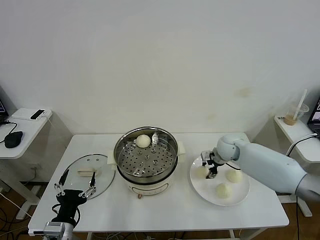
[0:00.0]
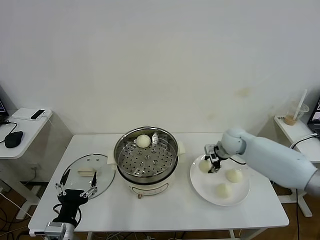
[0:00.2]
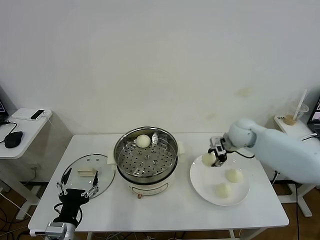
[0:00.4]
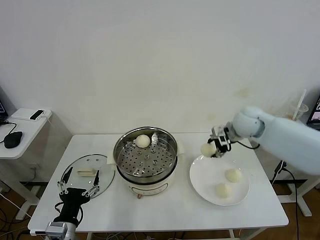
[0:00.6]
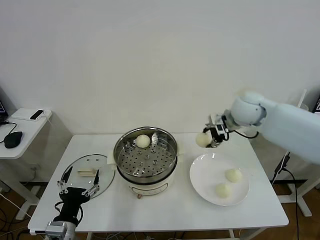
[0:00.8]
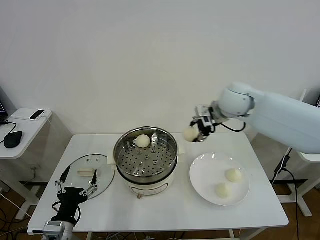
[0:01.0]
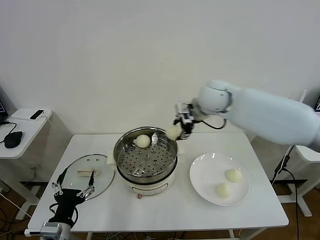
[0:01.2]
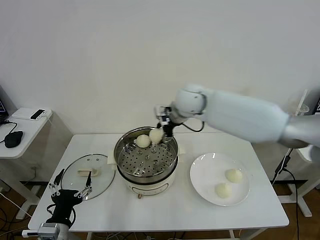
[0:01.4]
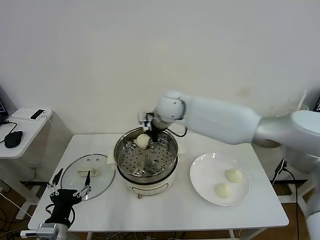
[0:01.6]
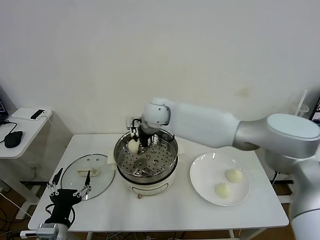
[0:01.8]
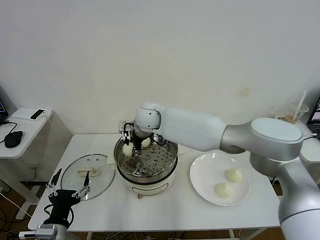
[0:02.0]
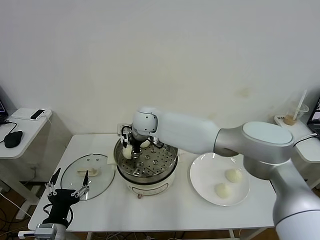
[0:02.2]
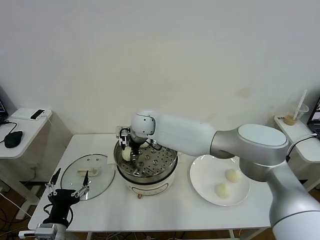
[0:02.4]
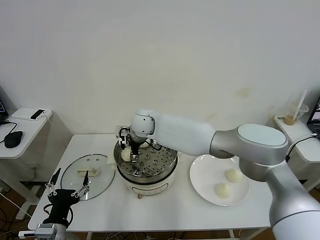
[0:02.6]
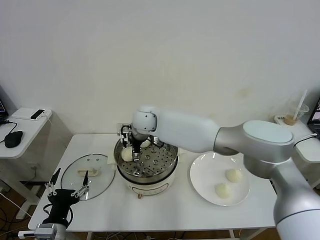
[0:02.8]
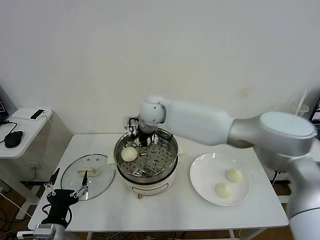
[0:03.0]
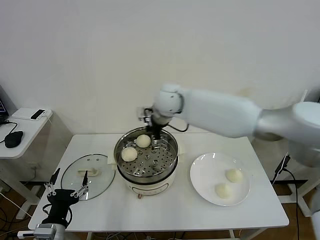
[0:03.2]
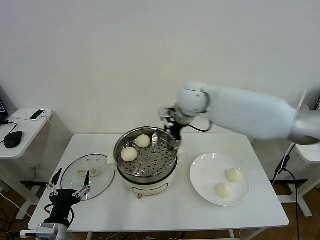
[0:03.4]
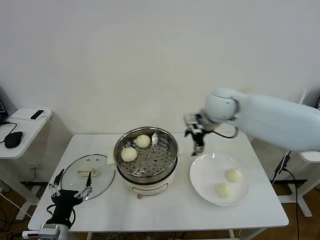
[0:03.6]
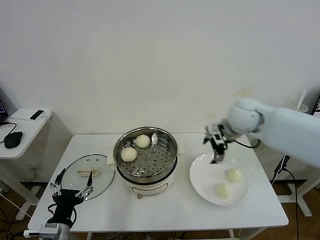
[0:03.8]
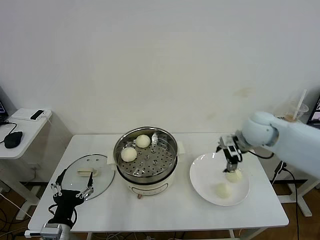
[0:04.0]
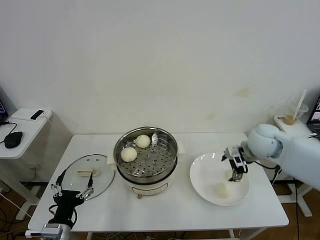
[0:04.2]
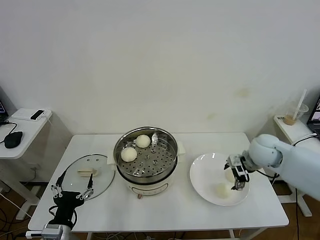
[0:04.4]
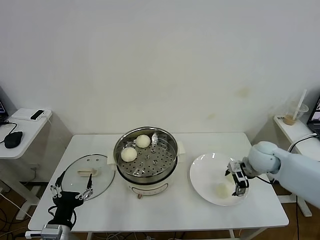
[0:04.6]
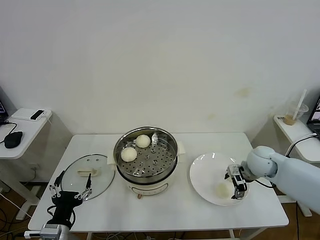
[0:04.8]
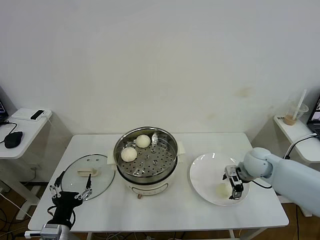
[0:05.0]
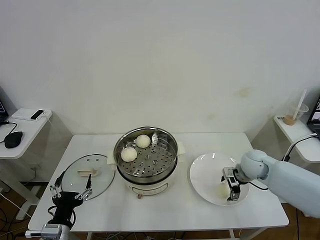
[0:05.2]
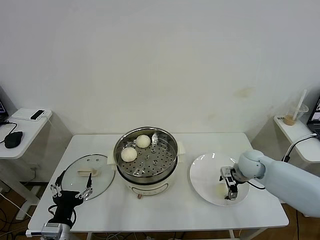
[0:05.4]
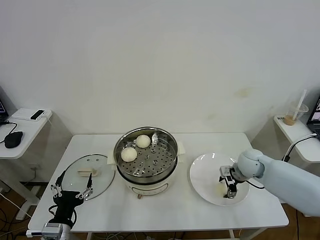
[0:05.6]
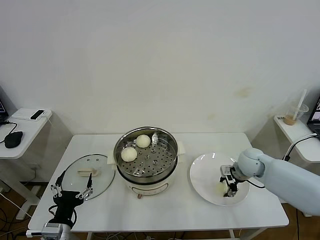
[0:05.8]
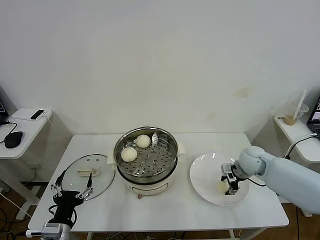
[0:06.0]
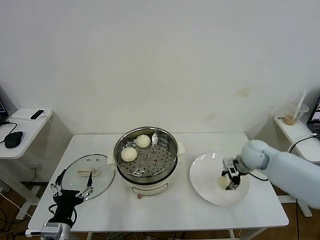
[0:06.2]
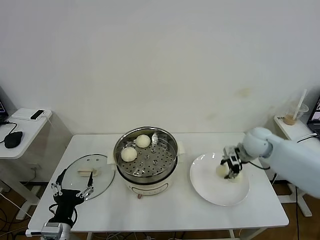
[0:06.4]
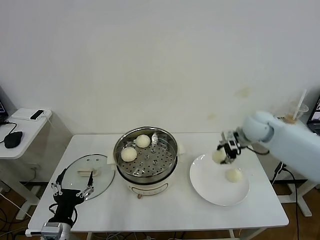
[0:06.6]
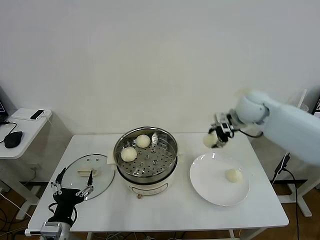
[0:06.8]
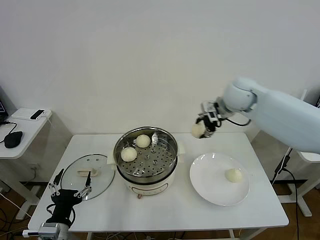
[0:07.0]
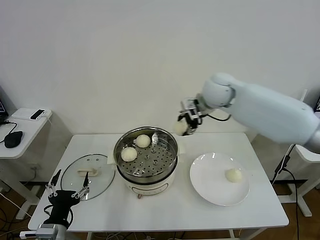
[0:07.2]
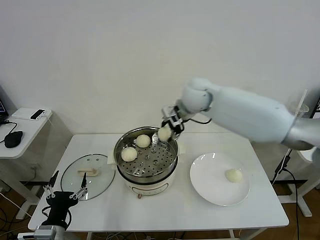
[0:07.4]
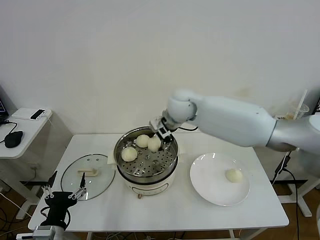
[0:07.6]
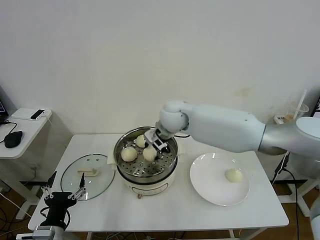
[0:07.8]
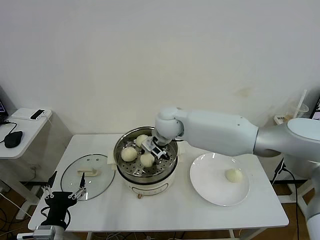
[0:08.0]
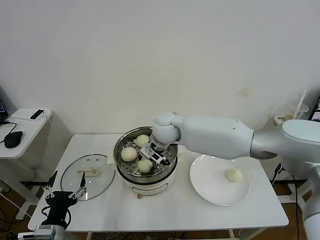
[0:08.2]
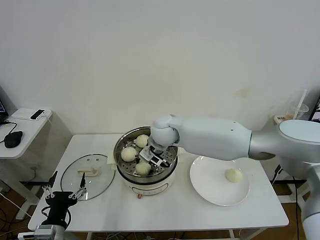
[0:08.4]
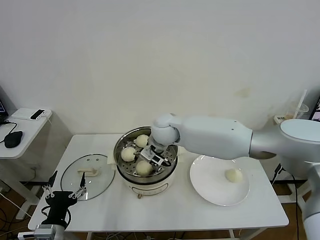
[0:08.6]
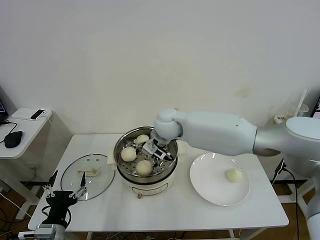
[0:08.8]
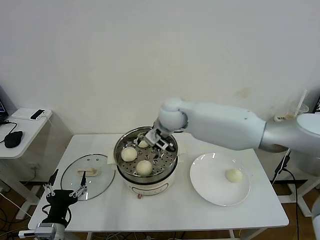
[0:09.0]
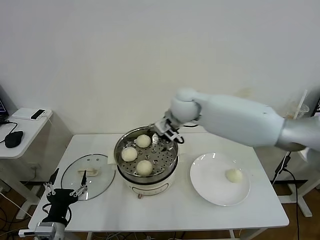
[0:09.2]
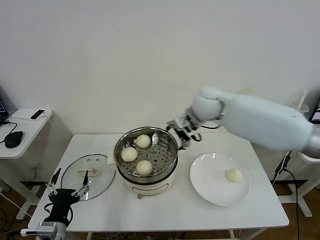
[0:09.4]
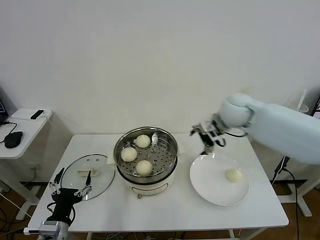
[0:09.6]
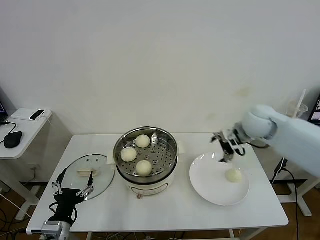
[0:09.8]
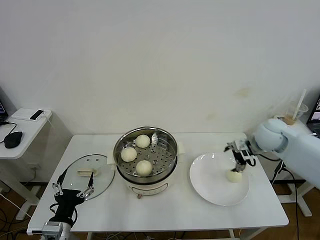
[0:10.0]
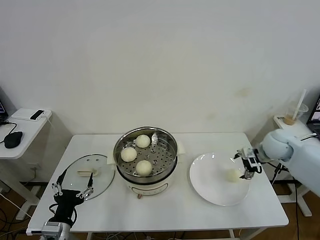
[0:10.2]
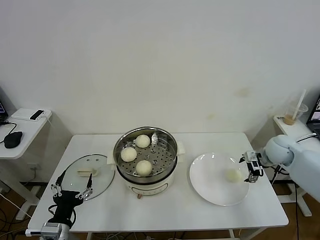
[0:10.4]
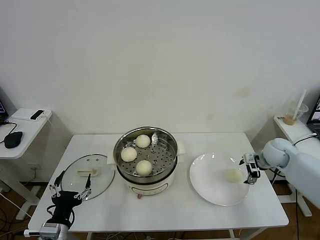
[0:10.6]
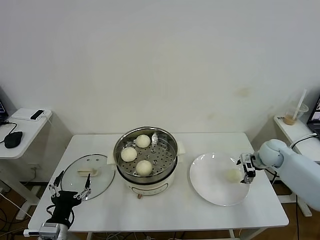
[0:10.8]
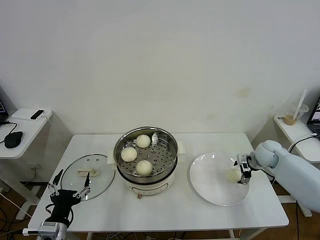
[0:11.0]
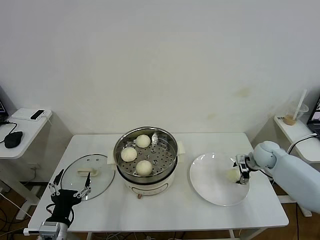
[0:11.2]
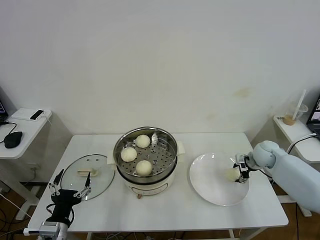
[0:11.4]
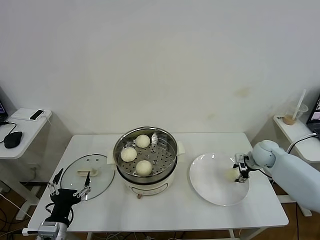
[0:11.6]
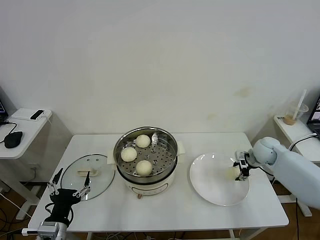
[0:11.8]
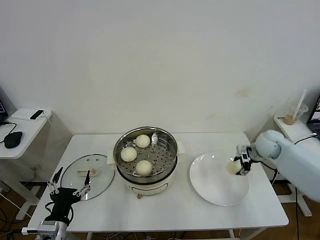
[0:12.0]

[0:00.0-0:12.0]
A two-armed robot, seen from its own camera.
Task of the whole recording: take steamed baozi put them in steamer then cover it.
Step, 0:00.0 to 0:02.8: Place the baozi on the steamer with right gripper.
Step, 0:03.0 to 0:05.8: Grasp the baozi in the plate with right gripper.
Step, 0:06.0 to 0:08.8: Place the baozi on the steamer with right gripper.
Step, 0:09.0 to 0:11.4: Grasp the baozi in the plate with right gripper.
0:00.0 to 0:01.6: The right gripper heads to the left and upward, covering roughly 30 cm.
0:01.6 to 0:03.0: The right gripper opens its fingers.
0:03.0 to 0:04.4: The right gripper shifts about 35 cm to the right.
0:04.4 to 0:06.0: The right gripper heads downward, covering approximately 5 cm, and closes.
0:06.0 to 0:07.6: The right gripper moves to the left and upward, approximately 35 cm.
0:07.6 to 0:09.0: The right gripper opens.
0:09.0 to 0:10.4: The right gripper heads to the right, covering roughly 35 cm.
0:10.4 to 0:12.0: The right gripper closes.

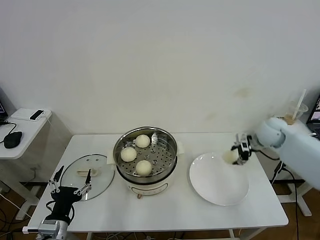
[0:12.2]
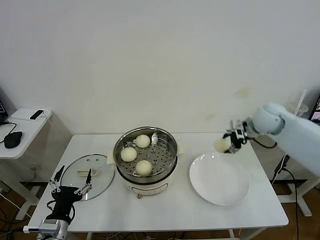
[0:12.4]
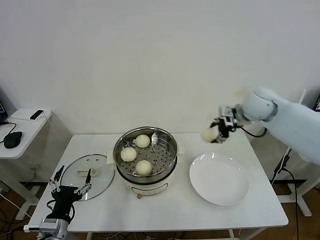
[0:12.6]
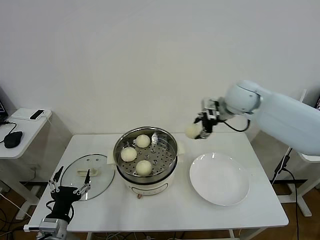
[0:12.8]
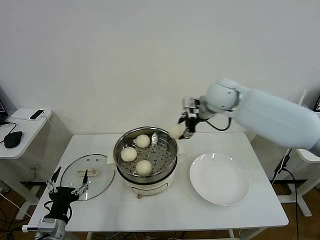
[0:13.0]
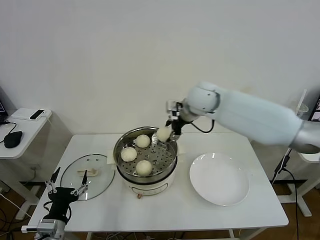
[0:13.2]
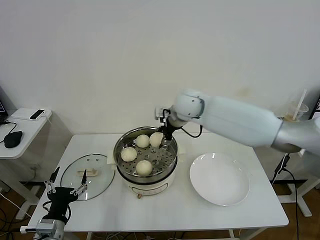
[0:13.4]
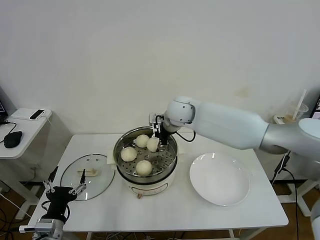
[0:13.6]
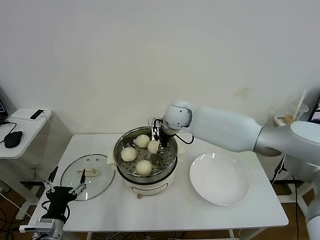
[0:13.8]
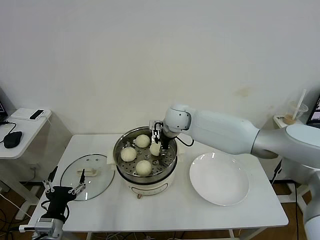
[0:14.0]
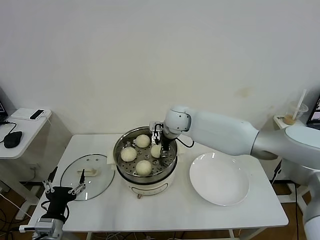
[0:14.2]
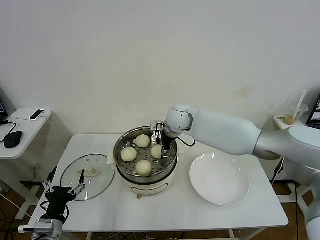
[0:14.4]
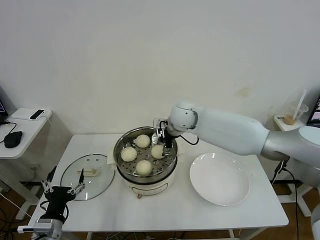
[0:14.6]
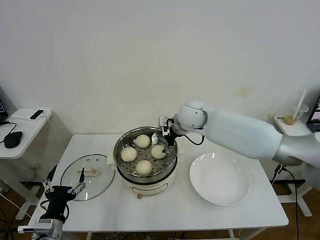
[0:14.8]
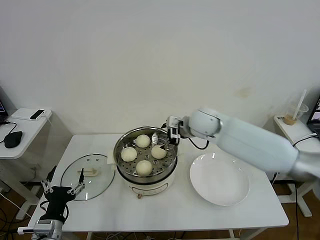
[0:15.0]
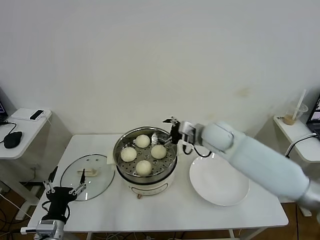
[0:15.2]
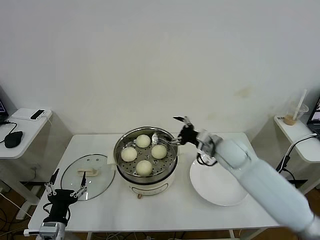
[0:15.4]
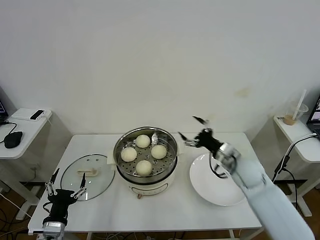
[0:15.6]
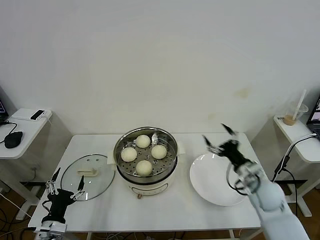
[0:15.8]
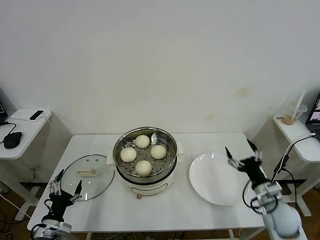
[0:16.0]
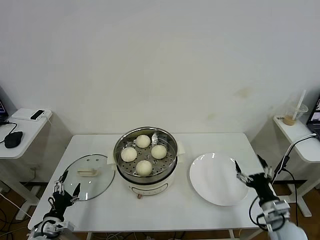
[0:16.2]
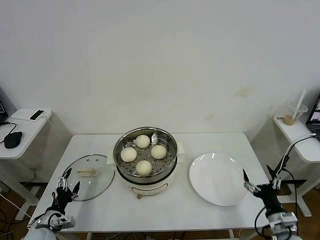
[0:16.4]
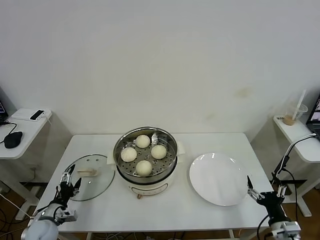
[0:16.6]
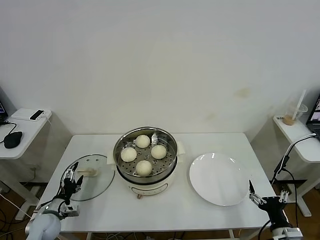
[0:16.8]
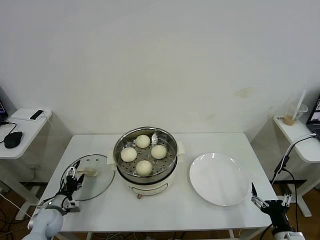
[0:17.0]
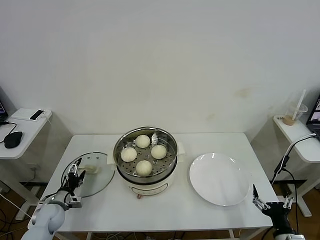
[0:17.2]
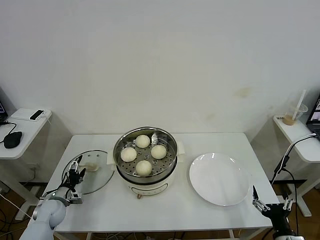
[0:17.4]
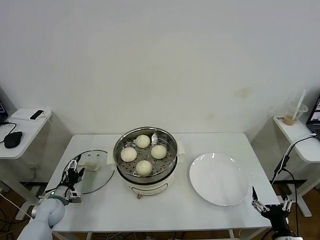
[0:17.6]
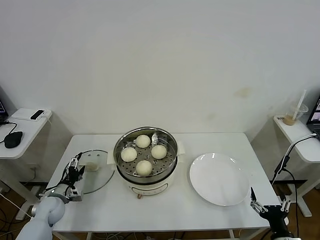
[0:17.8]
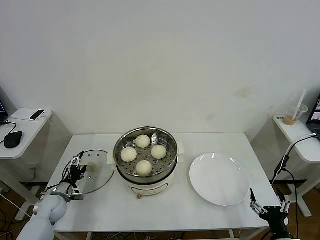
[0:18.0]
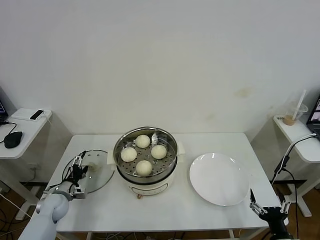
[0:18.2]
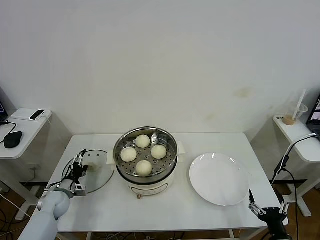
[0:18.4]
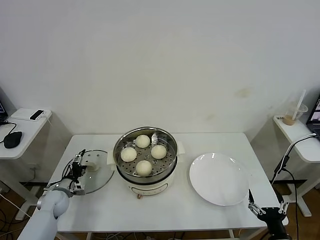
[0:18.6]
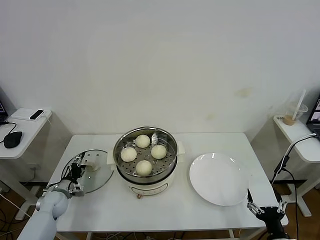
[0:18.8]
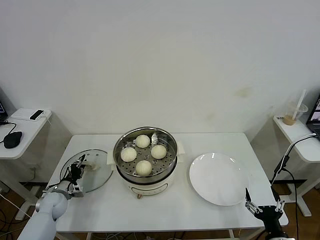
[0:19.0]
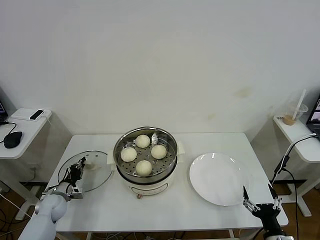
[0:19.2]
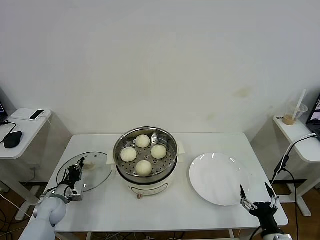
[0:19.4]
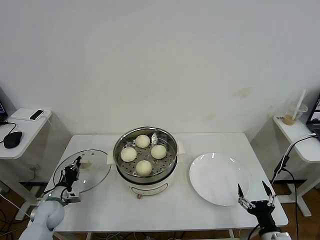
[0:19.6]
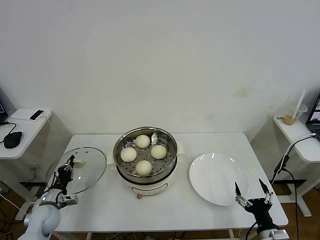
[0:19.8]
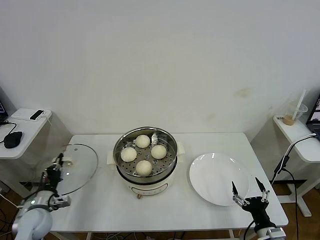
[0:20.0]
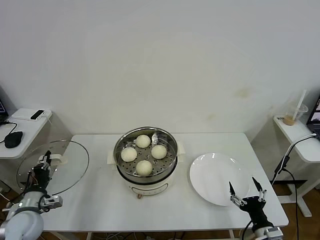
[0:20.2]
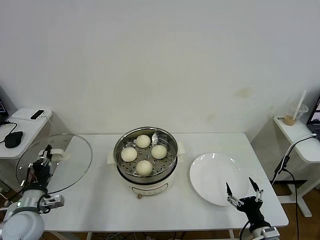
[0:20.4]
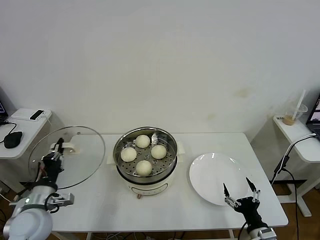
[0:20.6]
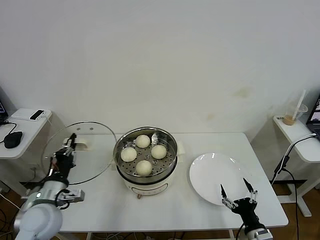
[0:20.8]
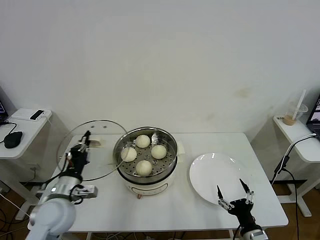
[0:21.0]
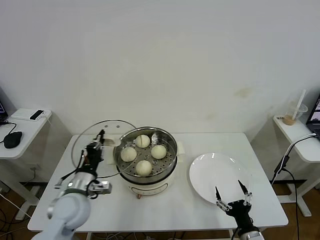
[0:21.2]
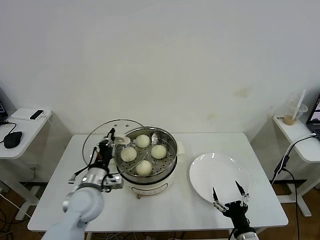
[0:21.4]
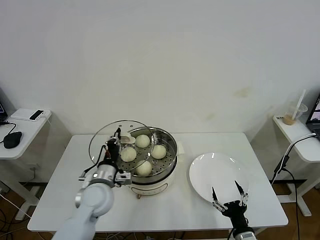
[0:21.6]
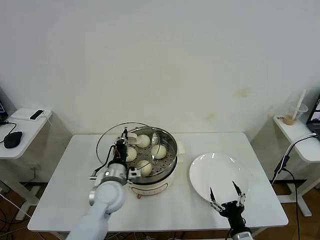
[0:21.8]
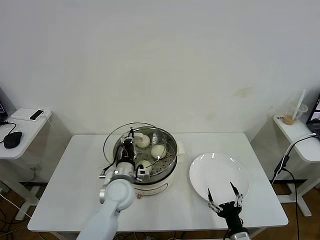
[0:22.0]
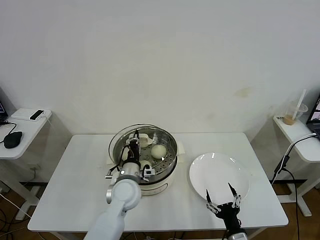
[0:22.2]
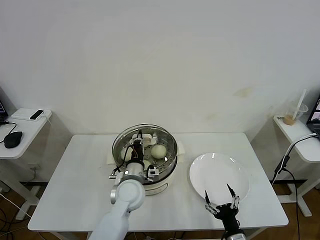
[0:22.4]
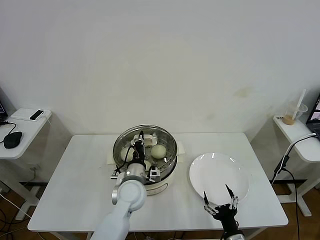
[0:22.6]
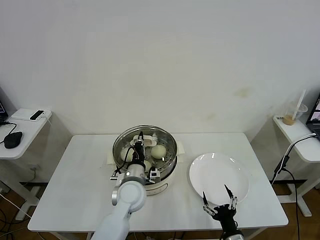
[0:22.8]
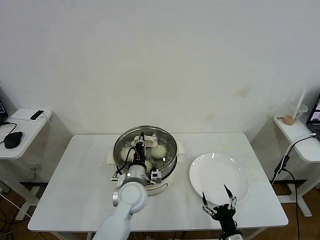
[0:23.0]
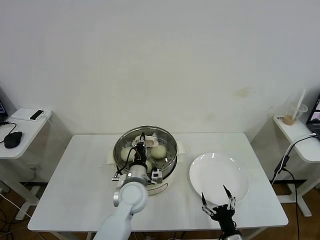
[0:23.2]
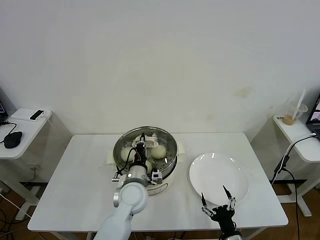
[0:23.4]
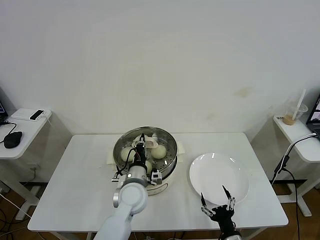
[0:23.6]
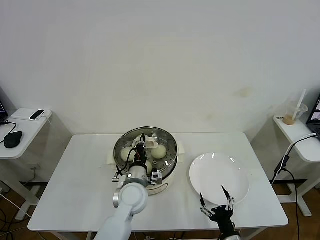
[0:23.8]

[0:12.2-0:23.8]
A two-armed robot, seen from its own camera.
Task of the whole recording: take steamed baozi put them in steamer then cover it.
Step, 0:12.2 to 0:14.6: Place the baozi on the steamer with right gripper.
Step, 0:14.8 to 0:19.4: Grasp the pot lid with left gripper.
0:12.2 to 0:13.6: The right gripper moves to the left, approximately 30 cm.
0:13.6 to 0:15.0: The right gripper goes about 5 cm to the right, and opens up.
0:15.0 to 0:16.6: The left gripper travels downward, to the left and forward by roughly 15 cm, while the right gripper moves backward, to the right and downward, about 50 cm.
0:16.6 to 0:18.0: The left gripper moves forward, approximately 10 cm.
0:18.0 to 0:19.4: The left gripper closes up.
0:19.4 to 0:21.0: The left gripper heads upward, to the right and backward, covering approximately 25 cm.
0:21.0 to 0:22.4: The right gripper ends up about 5 cm from where it was. Meanwhile the left gripper shifts some 20 cm to the right and forward.
0:22.4 to 0:23.8: The grippers make only small movements.
